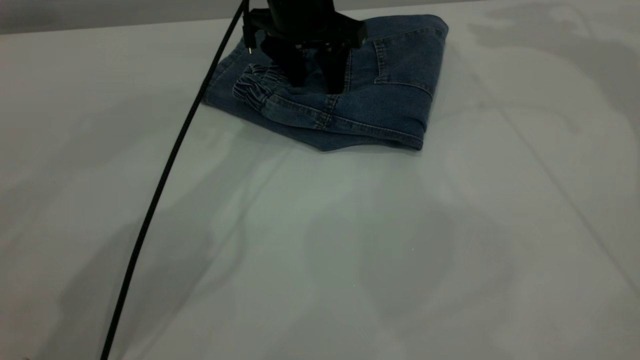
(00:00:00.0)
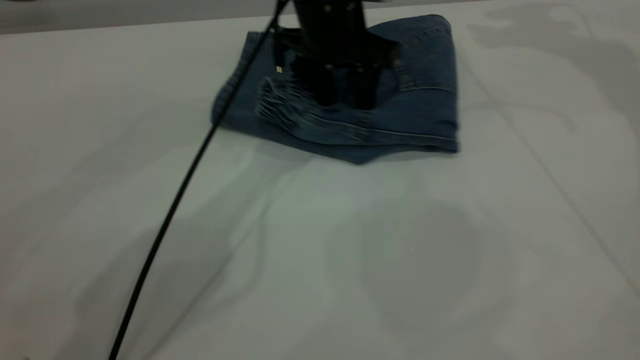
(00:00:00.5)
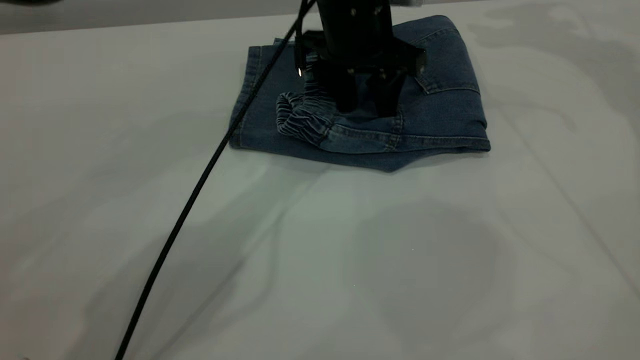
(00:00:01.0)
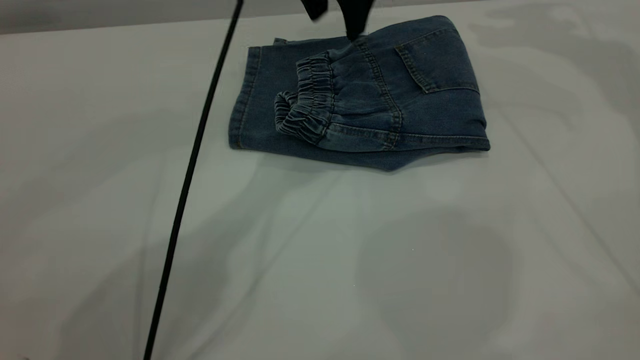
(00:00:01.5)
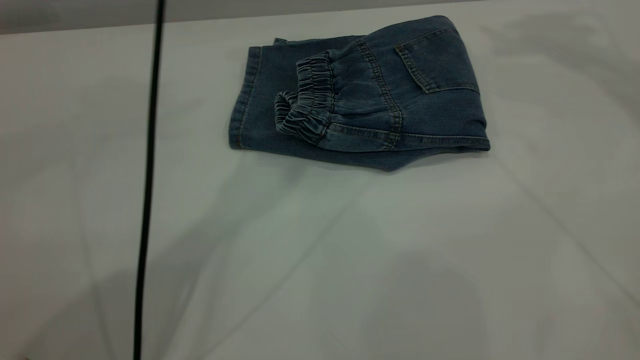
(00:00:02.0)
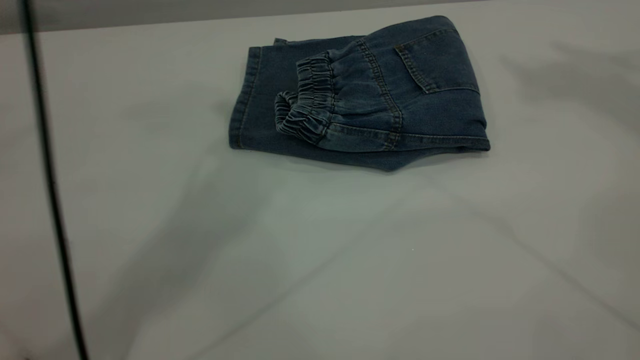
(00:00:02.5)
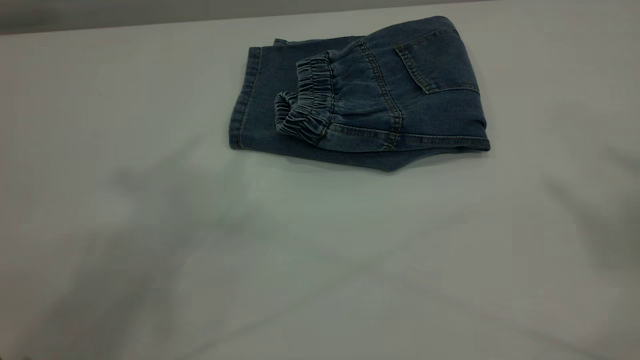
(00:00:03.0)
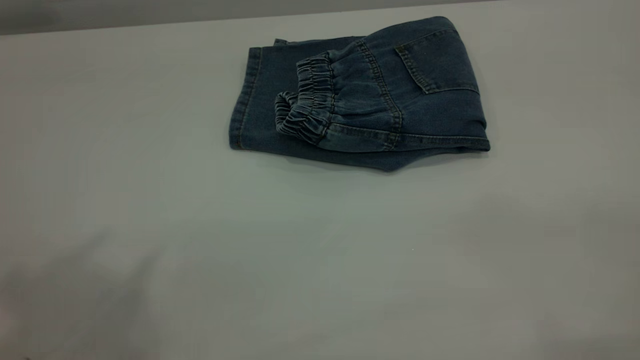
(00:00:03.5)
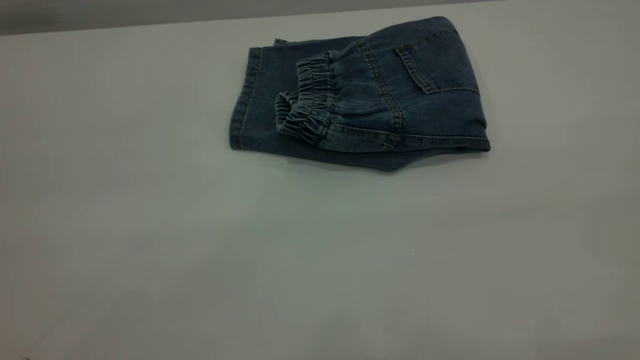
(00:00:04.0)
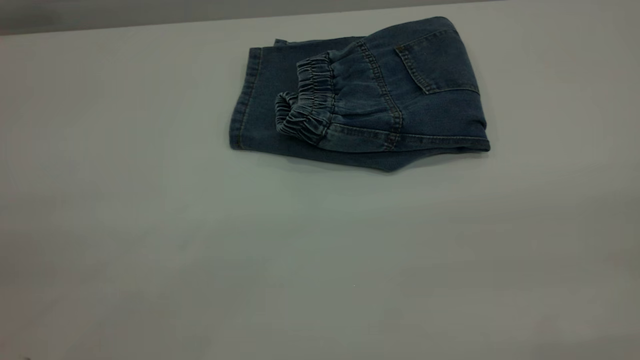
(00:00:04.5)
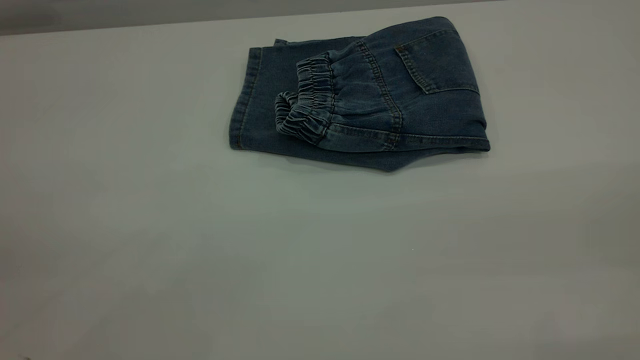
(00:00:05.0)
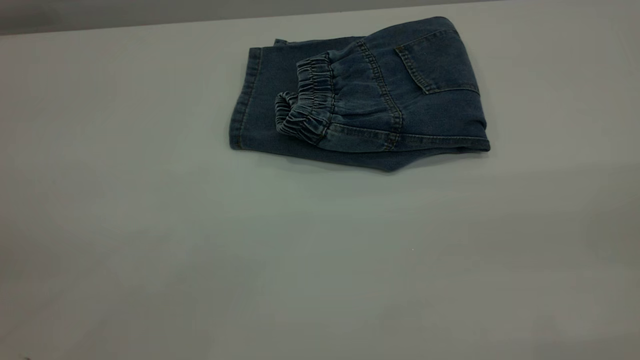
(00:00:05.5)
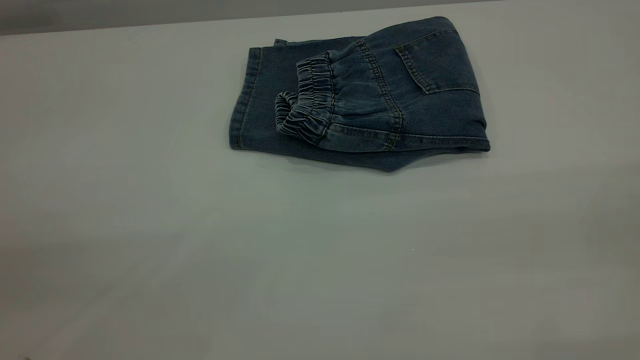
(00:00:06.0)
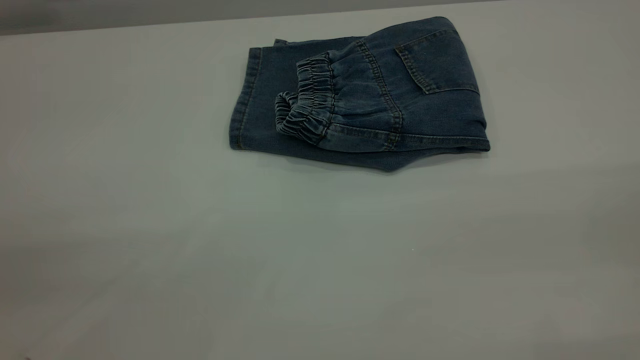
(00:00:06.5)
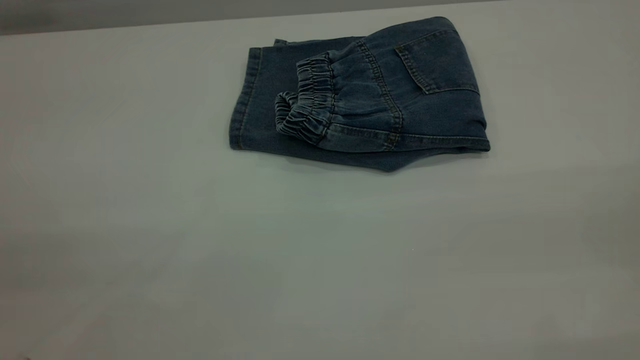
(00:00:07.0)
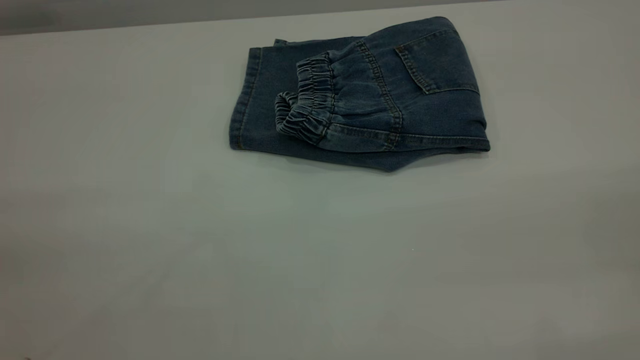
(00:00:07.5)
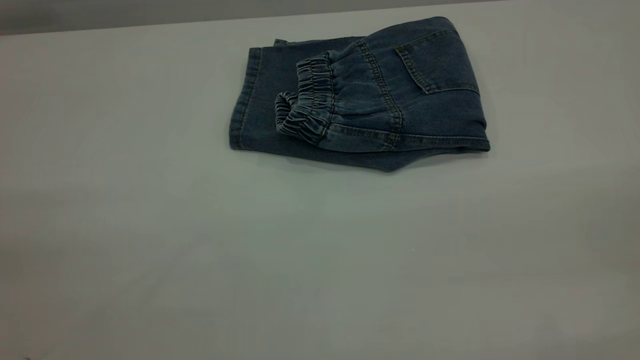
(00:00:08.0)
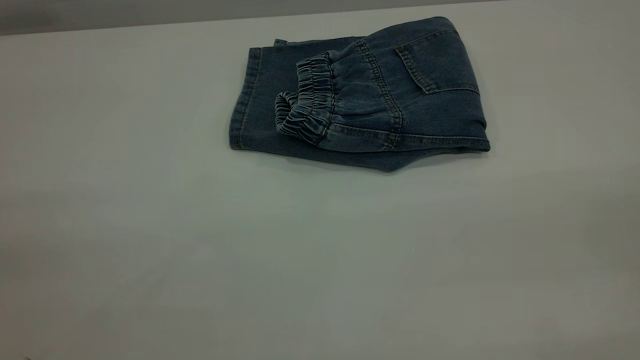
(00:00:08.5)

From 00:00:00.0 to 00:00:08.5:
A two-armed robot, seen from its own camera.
From 00:00:00.0 to 00:00:02.0: The left gripper heads upward, covering roughly 25 cm. The right gripper shifts some 15 cm upward and backward.
From 00:00:02.0 to 00:00:04.0: The left gripper goes approximately 40 cm backward and to the left.

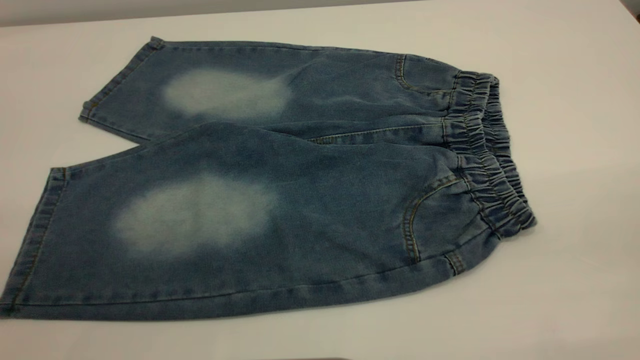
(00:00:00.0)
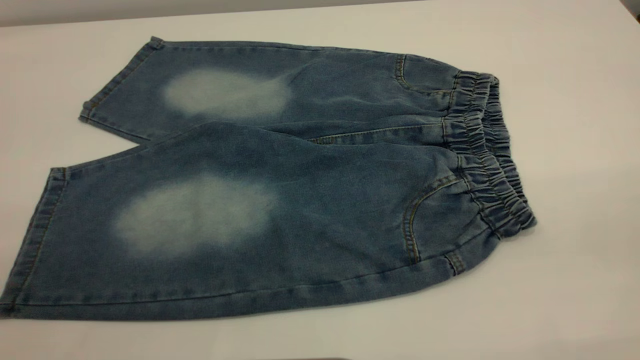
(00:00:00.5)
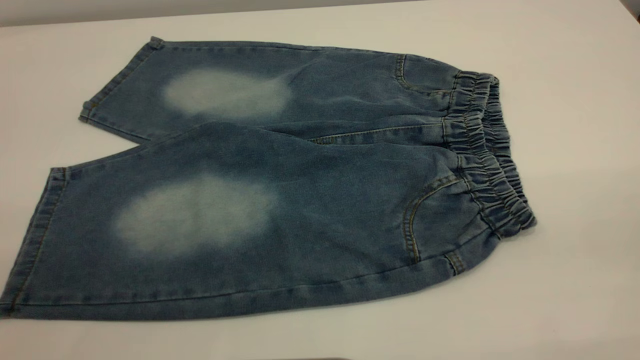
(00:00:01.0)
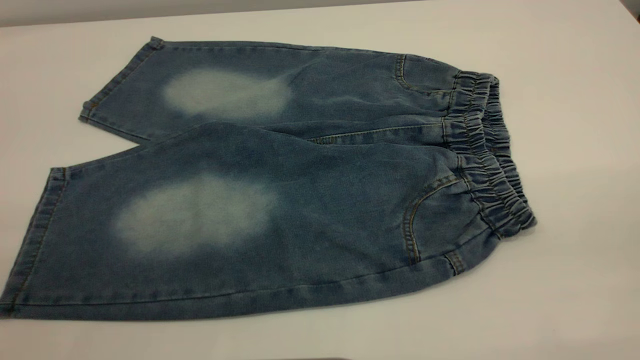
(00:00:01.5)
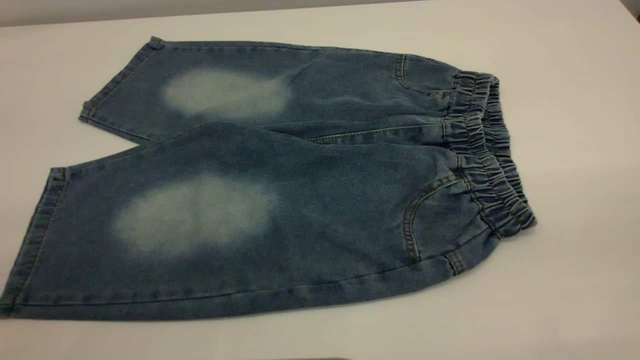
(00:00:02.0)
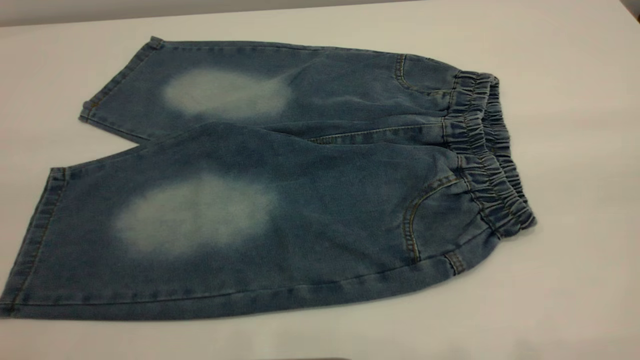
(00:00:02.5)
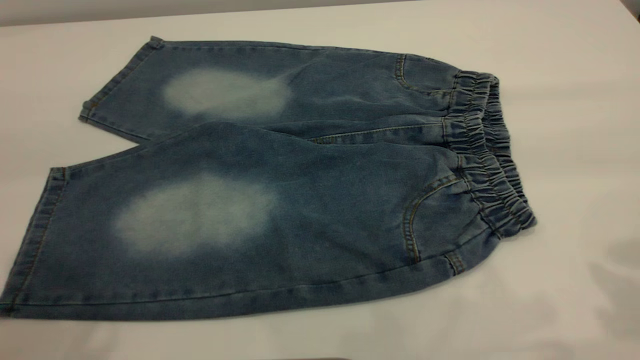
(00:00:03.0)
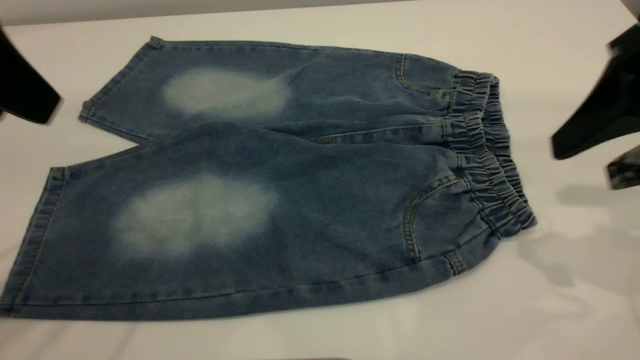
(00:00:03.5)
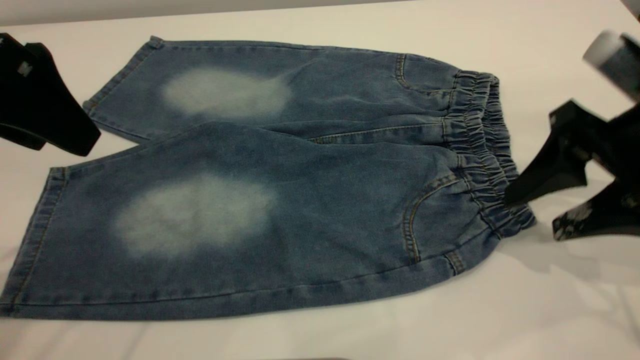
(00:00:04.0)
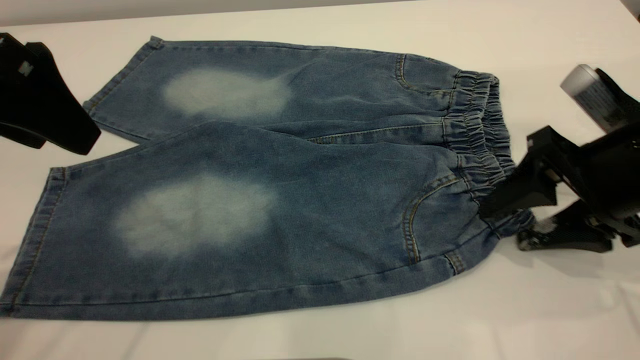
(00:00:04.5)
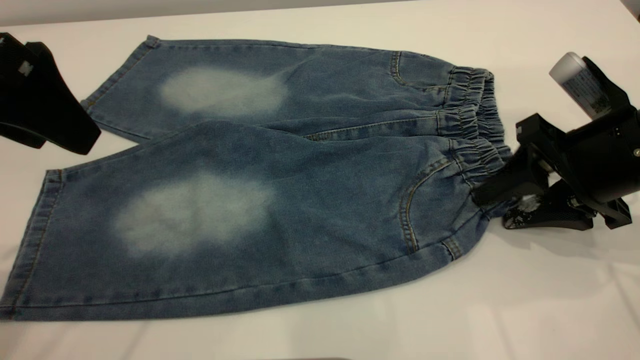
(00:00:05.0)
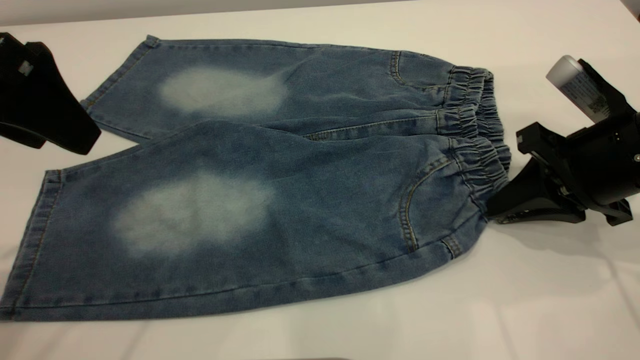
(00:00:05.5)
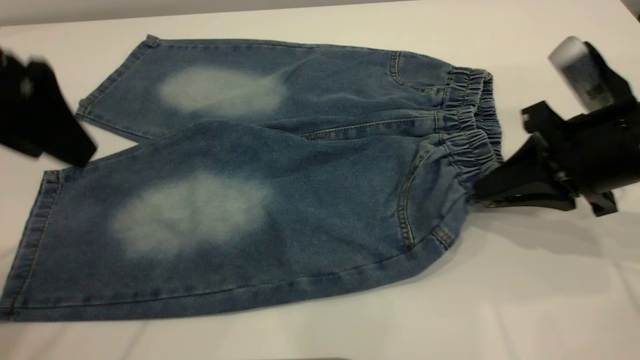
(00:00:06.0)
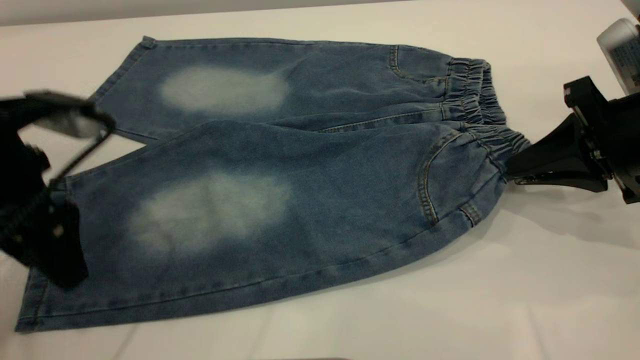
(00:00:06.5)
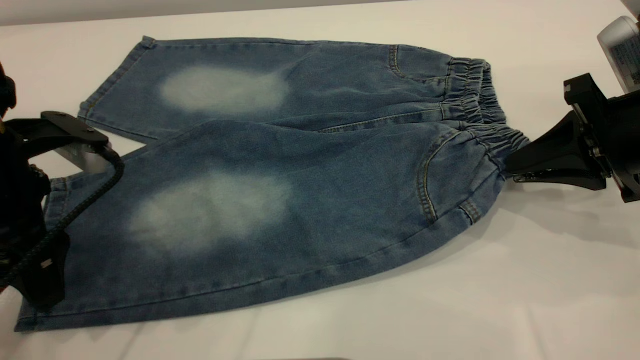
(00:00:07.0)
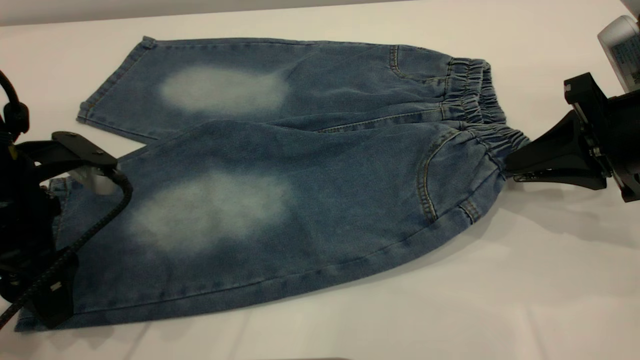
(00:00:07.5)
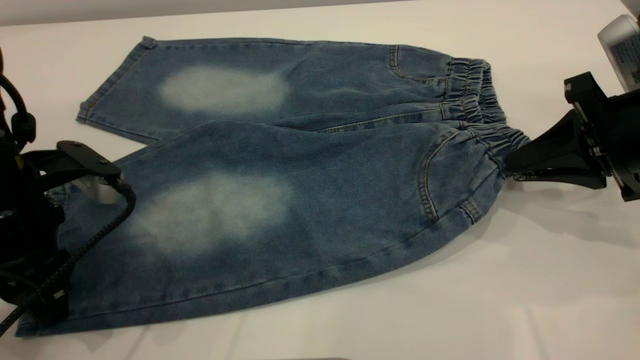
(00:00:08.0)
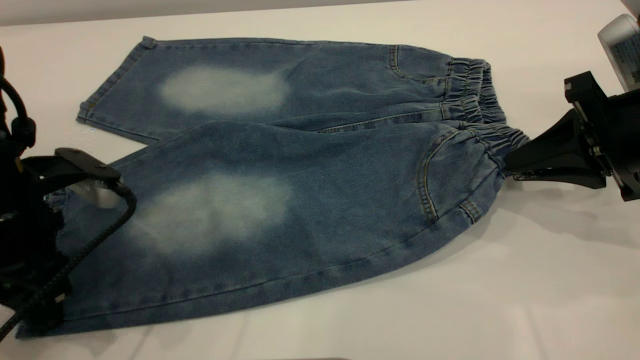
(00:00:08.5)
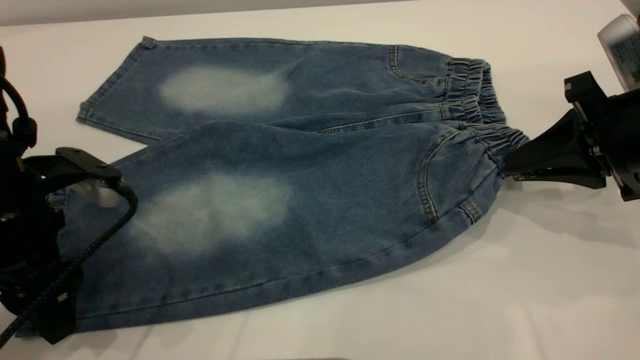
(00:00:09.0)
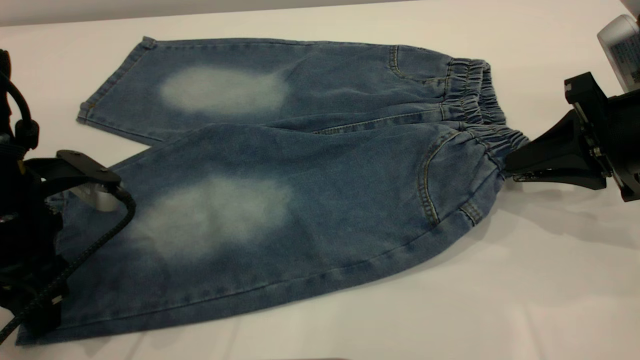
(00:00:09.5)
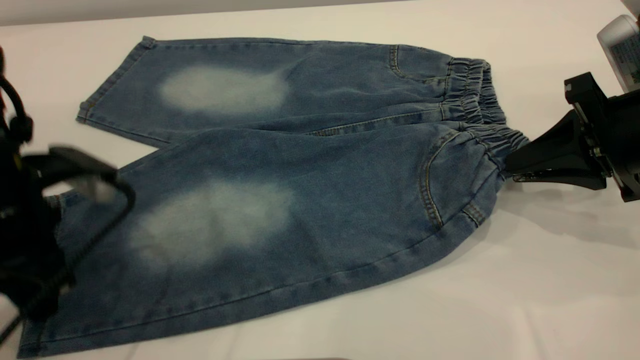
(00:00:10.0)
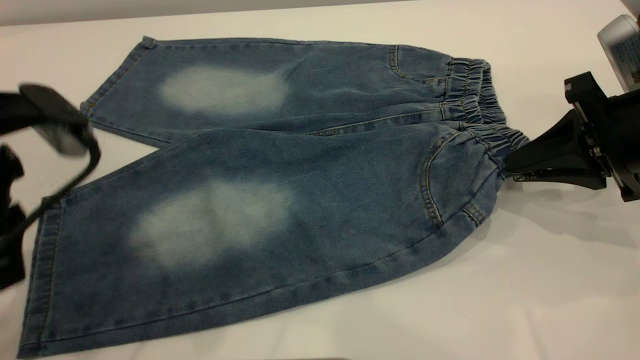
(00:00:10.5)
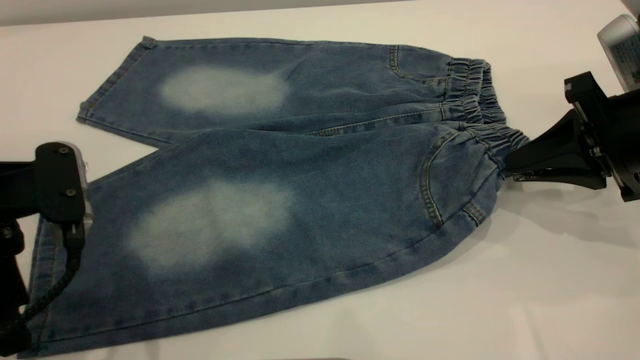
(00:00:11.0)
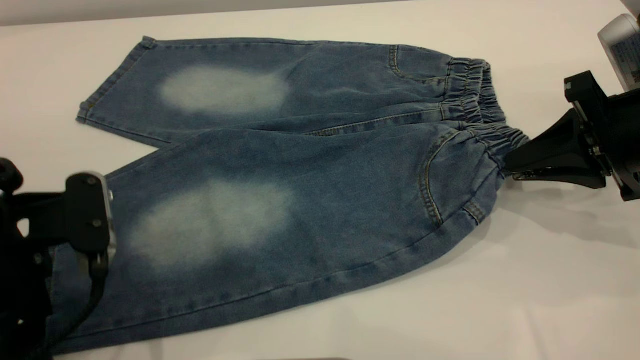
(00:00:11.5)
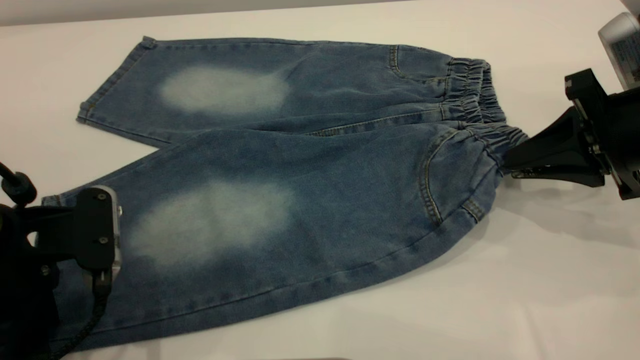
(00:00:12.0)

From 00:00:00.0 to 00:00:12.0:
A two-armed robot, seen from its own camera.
From 00:00:00.0 to 00:00:02.0: Neither gripper changes place.
From 00:00:02.0 to 00:00:04.0: The left gripper goes some 25 cm forward. The right gripper moves forward and downward, approximately 30 cm.
From 00:00:04.0 to 00:00:06.0: The right gripper closes.
From 00:00:06.0 to 00:00:08.0: The left gripper shifts some 15 cm downward, and closes.
From 00:00:08.0 to 00:00:10.0: The left gripper closes.
From 00:00:10.0 to 00:00:12.0: The left gripper travels backward by approximately 5 cm, and opens its fingers.
